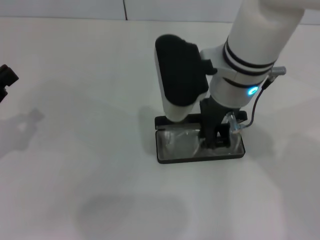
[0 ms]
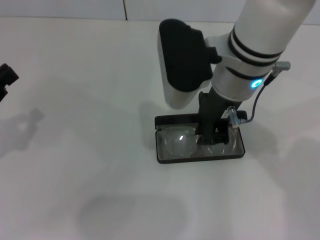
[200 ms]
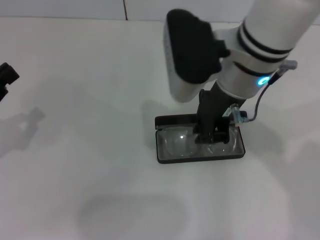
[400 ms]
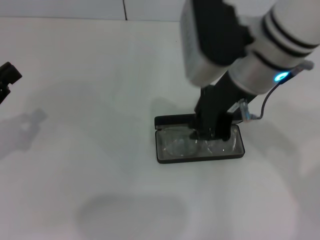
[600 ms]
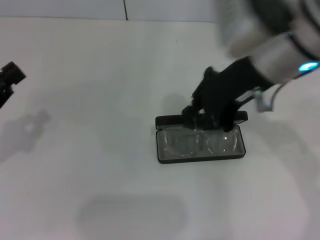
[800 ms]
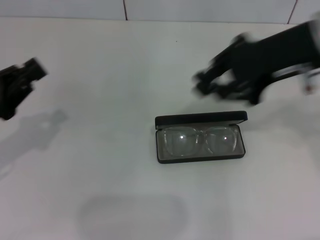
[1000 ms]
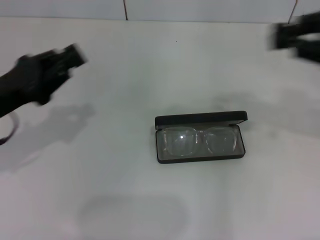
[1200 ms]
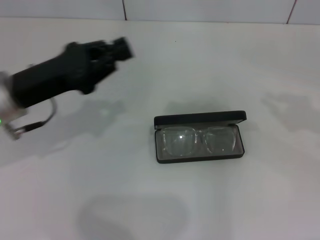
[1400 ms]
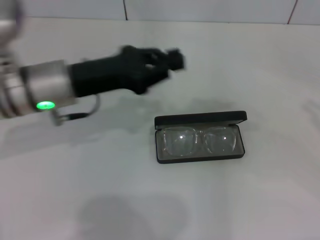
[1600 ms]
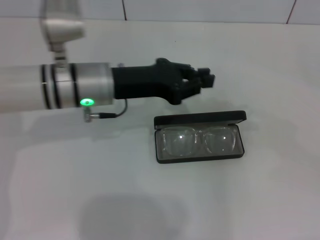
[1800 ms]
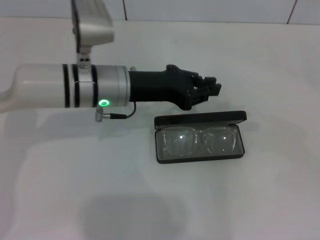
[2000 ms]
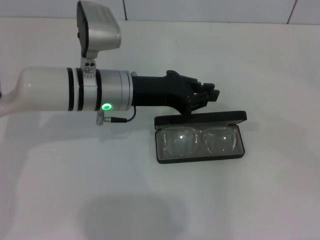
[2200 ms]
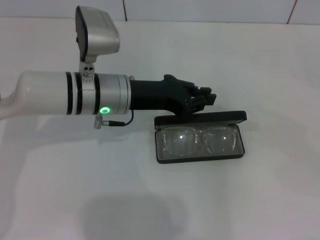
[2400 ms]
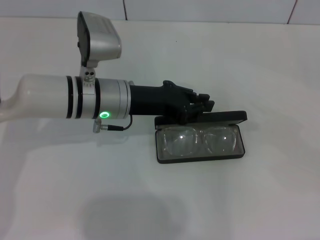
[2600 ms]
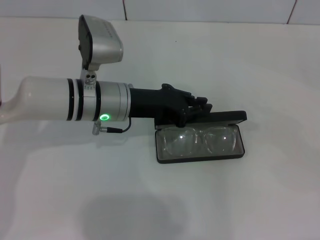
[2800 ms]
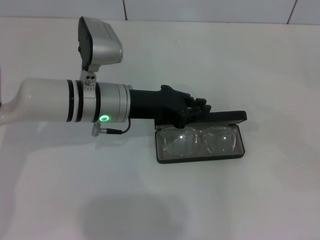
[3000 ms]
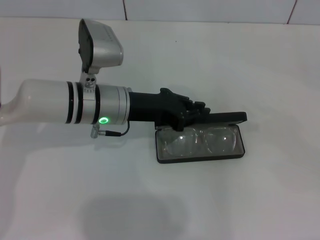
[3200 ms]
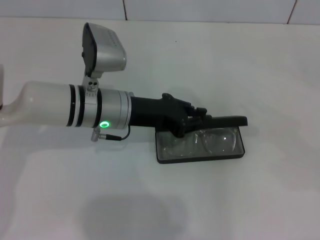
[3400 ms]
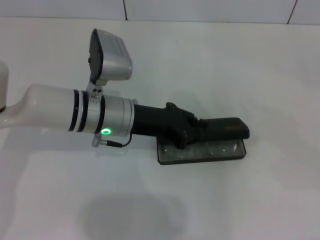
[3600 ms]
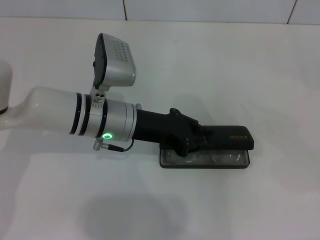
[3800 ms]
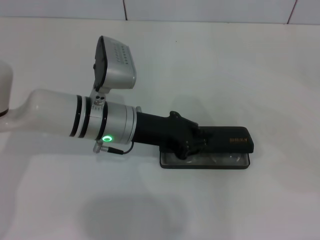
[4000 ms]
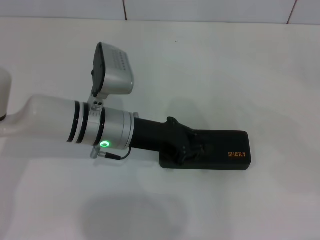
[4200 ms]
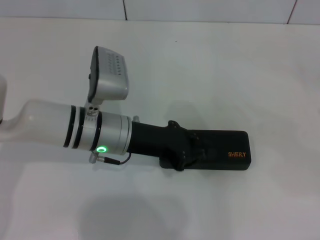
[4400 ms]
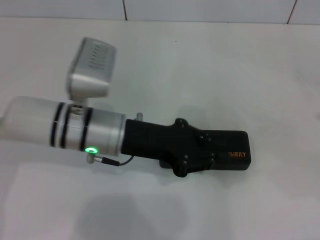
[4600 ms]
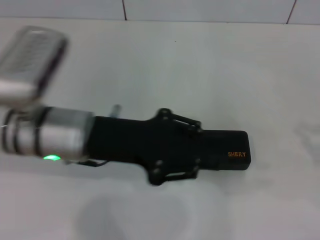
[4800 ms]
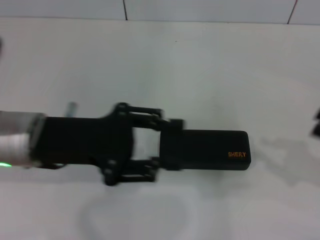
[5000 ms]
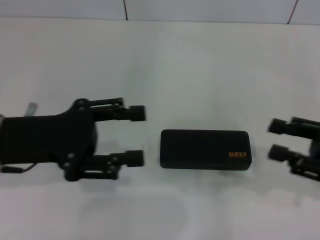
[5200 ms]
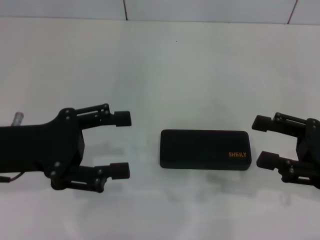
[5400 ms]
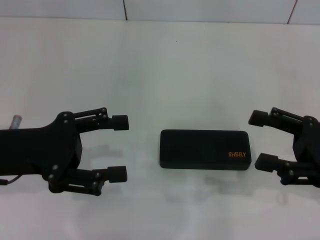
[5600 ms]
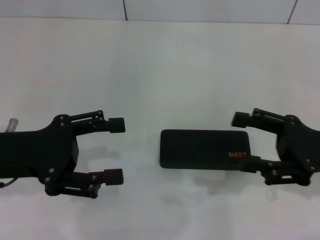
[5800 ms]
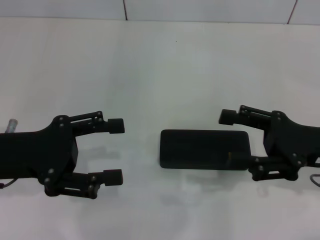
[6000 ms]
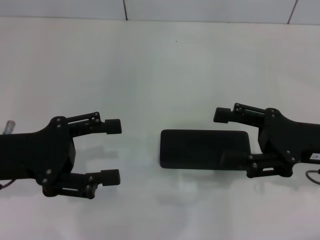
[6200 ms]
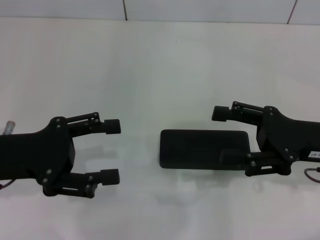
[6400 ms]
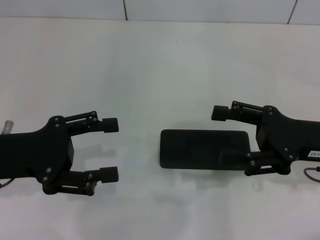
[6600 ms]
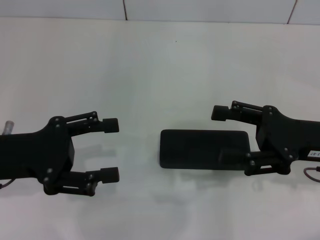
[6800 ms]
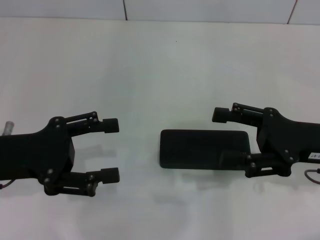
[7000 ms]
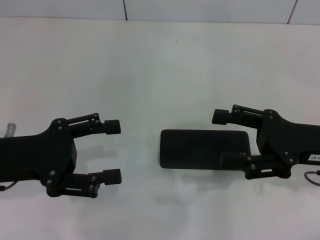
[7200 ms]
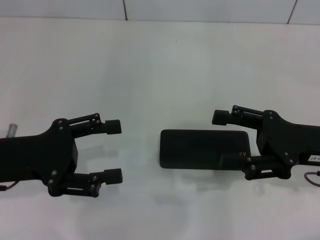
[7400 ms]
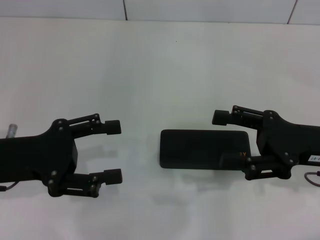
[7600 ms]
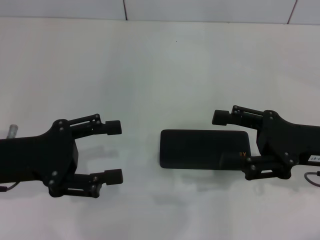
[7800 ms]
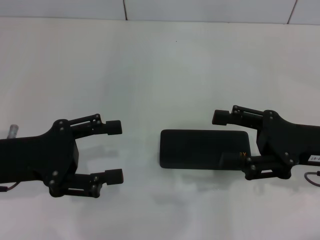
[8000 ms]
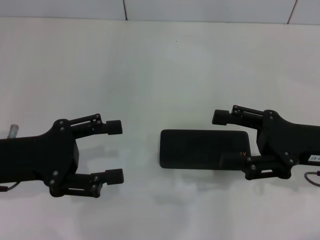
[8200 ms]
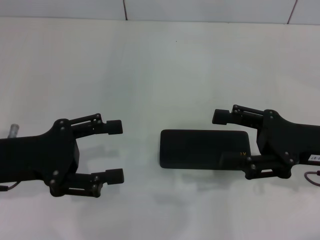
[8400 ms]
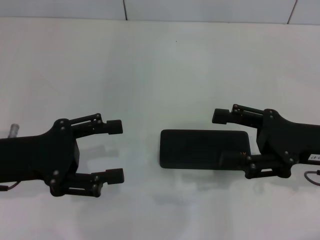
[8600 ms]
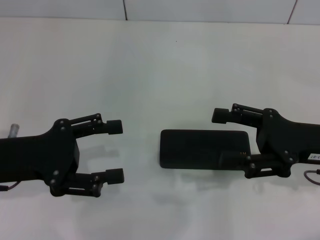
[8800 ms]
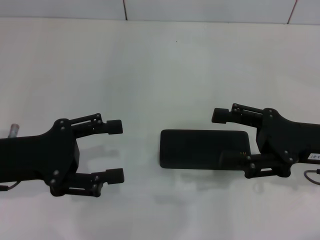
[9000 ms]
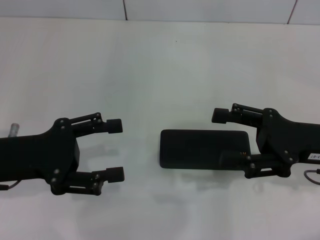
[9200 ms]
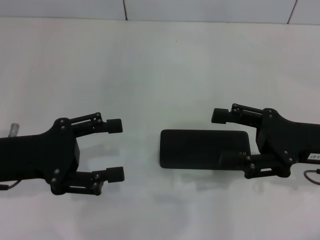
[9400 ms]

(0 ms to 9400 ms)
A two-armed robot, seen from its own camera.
Step, 800 ms - 4600 ms: Close the glasses case with your left hand.
0 ms - 1600 ms: The right gripper goes some 35 cm to the right; the left gripper heads to the right and forward, covering approximately 20 cm.
1600 ms - 3200 ms: The left gripper moves to the right, roughly 5 cm.
3200 ms - 4800 ms: The left gripper is displaced backward by roughly 5 cm.
4800 ms - 6200 ms: The left gripper travels to the left by about 10 cm, and opens. Meanwhile the right gripper shifts about 15 cm to the left and forward, and opens its fingers.
6200 ms - 9400 ms: The two grippers keep their place.

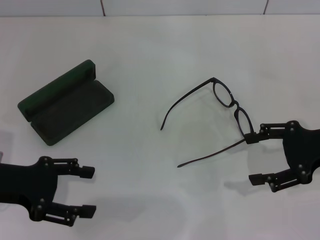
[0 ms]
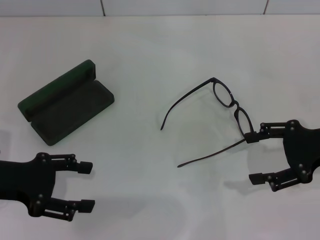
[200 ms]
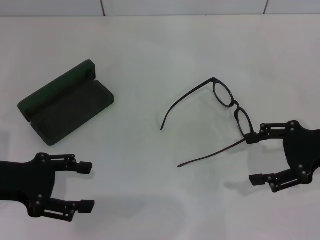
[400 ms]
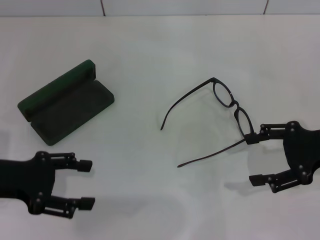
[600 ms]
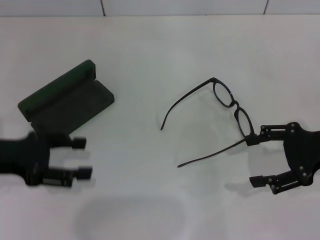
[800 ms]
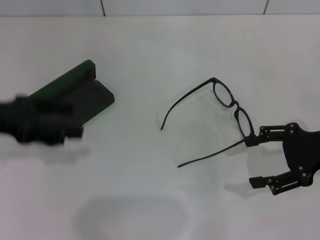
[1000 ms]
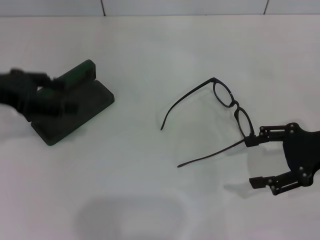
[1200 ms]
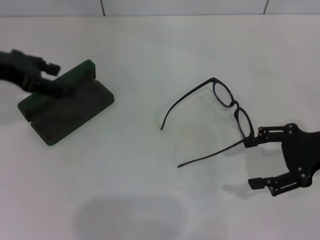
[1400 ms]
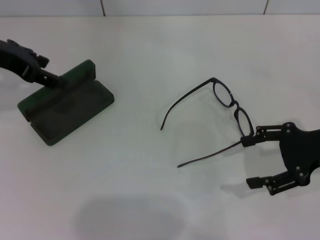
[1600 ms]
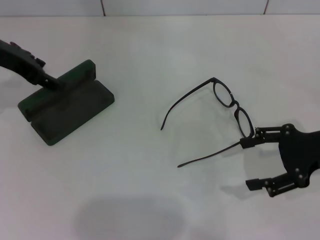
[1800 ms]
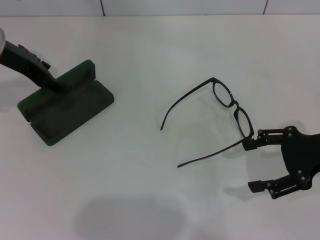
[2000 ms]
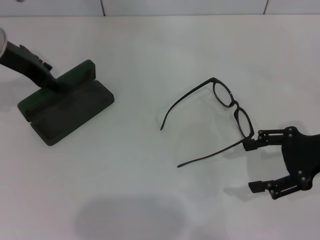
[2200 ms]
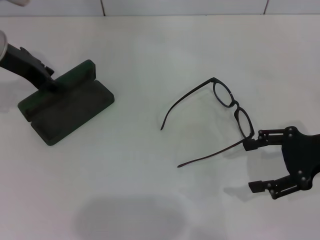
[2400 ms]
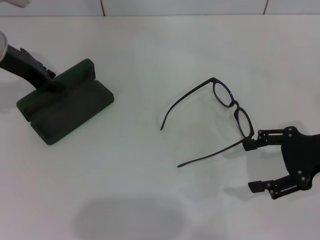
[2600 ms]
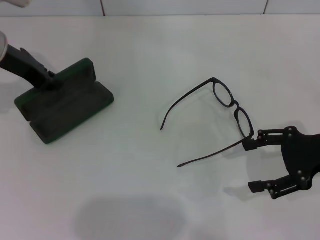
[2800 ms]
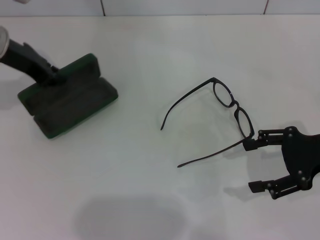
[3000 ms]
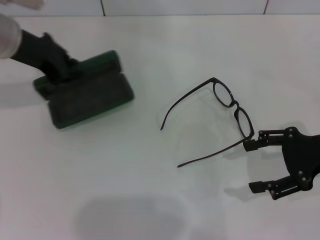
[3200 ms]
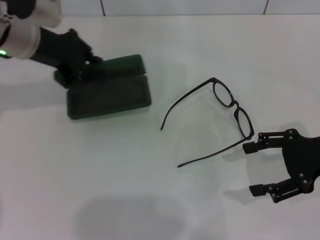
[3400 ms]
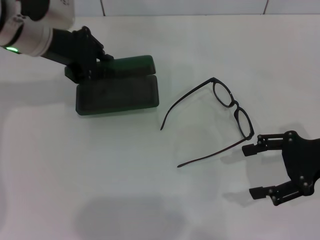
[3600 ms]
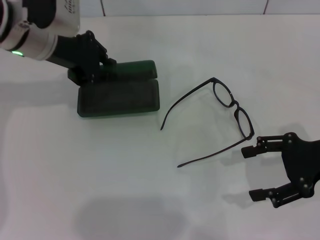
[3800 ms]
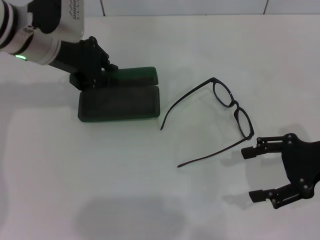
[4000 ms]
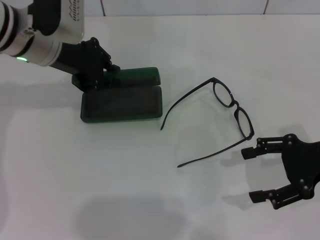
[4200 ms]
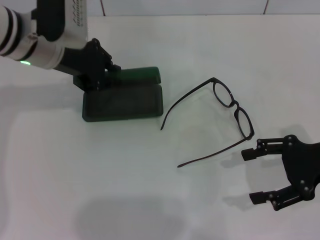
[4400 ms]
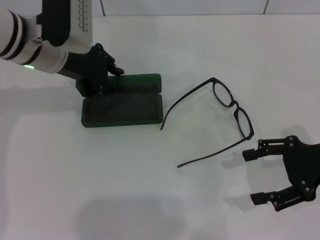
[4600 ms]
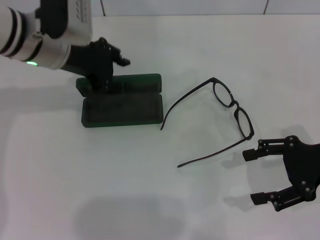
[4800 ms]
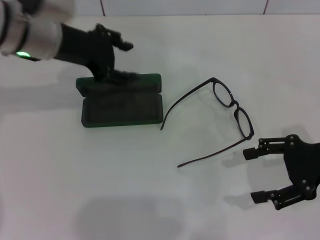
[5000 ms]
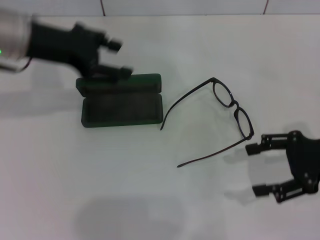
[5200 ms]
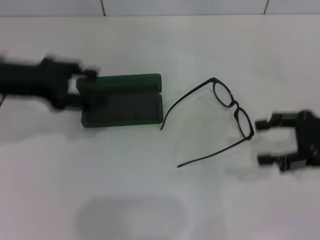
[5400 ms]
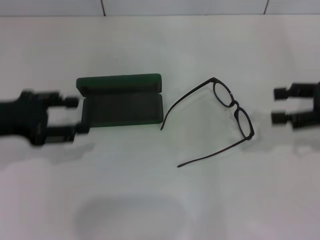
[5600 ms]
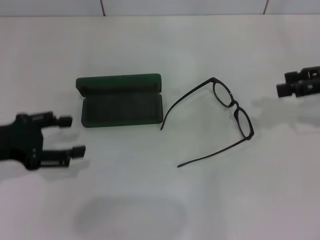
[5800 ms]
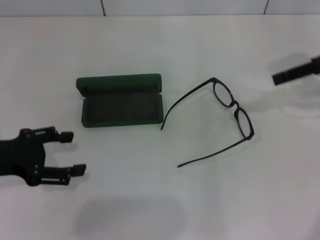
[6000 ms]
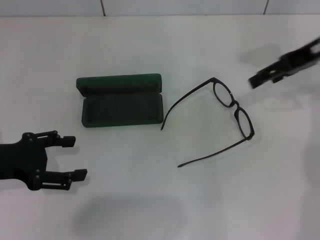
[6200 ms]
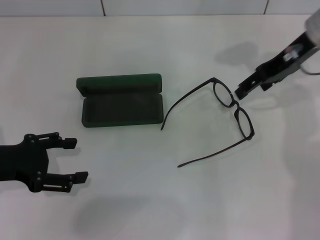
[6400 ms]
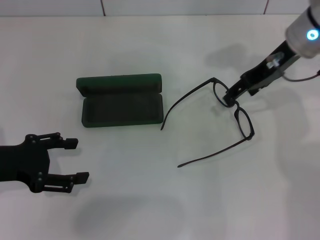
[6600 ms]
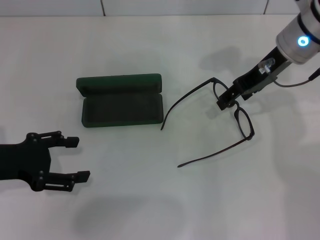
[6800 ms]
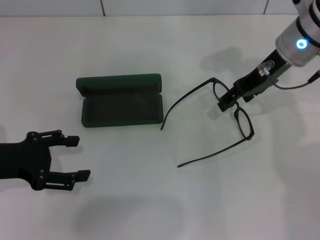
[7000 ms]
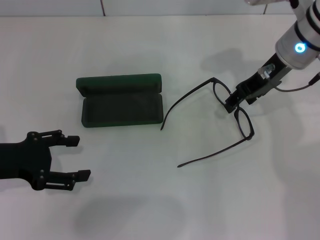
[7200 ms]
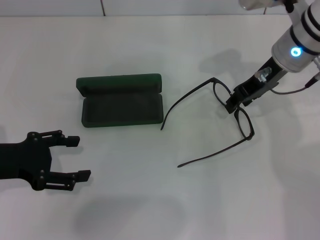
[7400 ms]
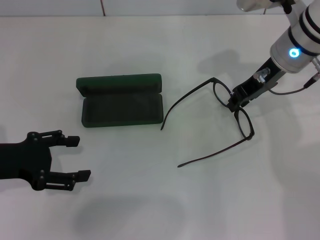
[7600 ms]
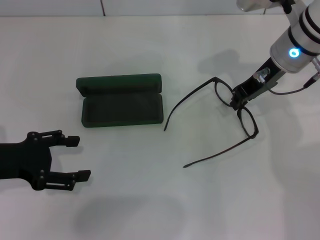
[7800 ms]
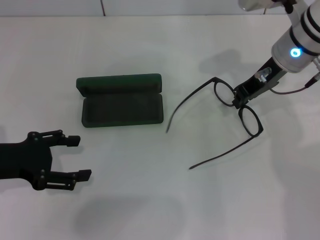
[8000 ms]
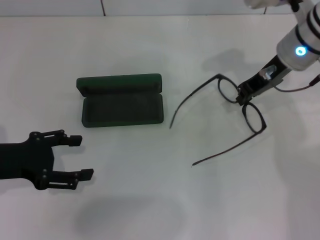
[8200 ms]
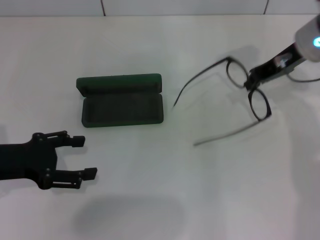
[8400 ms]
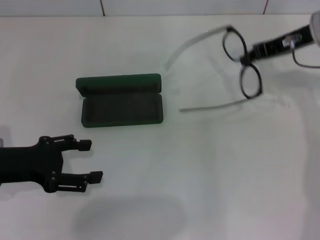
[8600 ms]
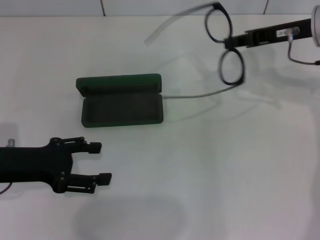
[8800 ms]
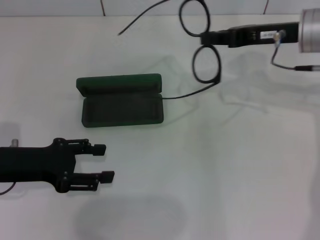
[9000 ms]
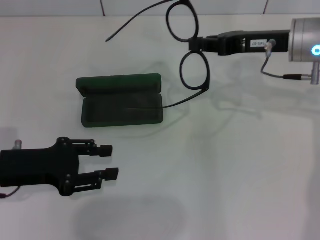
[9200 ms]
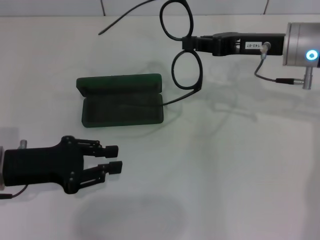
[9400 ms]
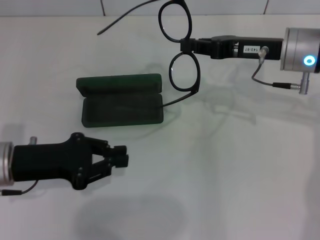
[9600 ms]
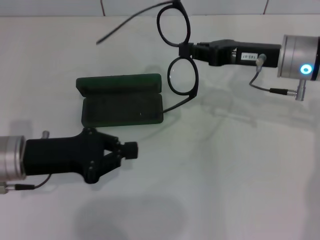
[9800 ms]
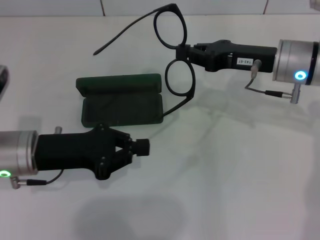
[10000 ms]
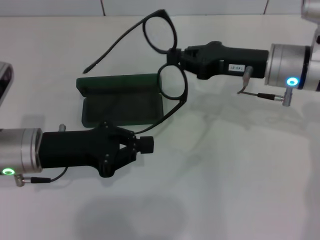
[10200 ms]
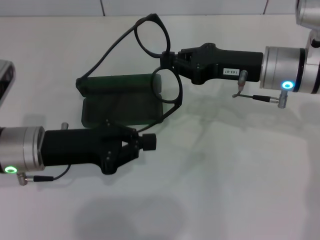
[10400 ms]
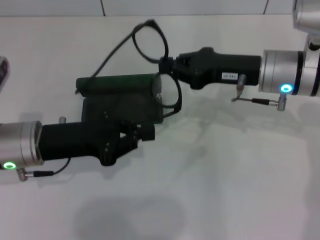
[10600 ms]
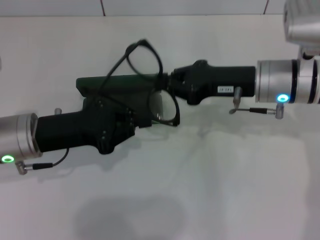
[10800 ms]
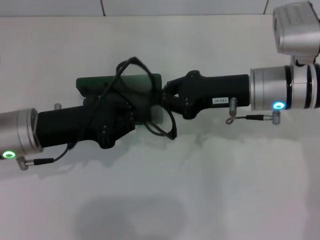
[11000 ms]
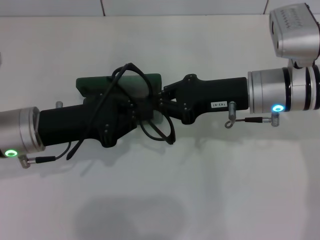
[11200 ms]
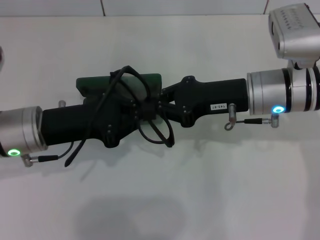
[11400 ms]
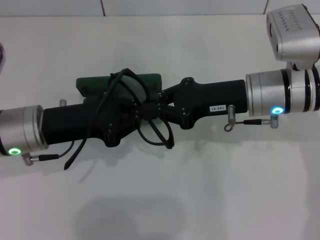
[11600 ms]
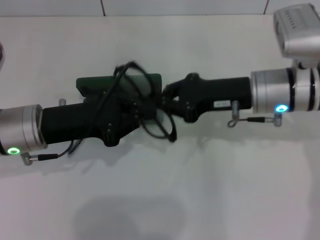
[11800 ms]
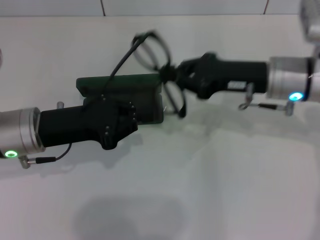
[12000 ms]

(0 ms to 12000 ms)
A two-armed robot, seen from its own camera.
Step, 0 ms - 3000 ms: Grab the glasses case with your left hand.
Step, 3200 ms - 5200 ms: Place the glasses case in the center of the table with your left hand.
Step, 5400 ms - 7800 ms: Grab the eyeglass frame with your right hand.
0 ms - 1600 ms: The left gripper moves forward and upward, some 15 cm.
1600 ms - 3000 ms: The left gripper closes its fingers.
3000 ms - 4400 ms: The left gripper shifts approximately 5 cm to the right.
4400 ms - 6000 ms: The right gripper shifts roughly 15 cm forward and upward. The left gripper heads backward and to the left, covering some 20 cm, and opens.
6000 ms - 7600 ms: The right gripper heads to the left, covering about 15 cm, and closes.
7600 ms - 9000 ms: The right gripper closes its fingers.
9000 ms - 10400 ms: The left gripper shifts approximately 5 cm to the right, and closes. Meanwhile the right gripper changes place by some 5 cm.

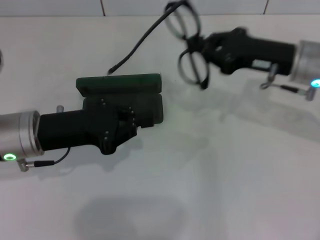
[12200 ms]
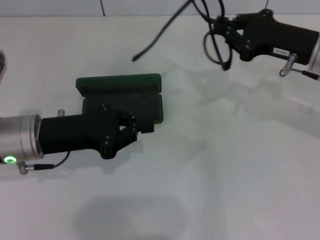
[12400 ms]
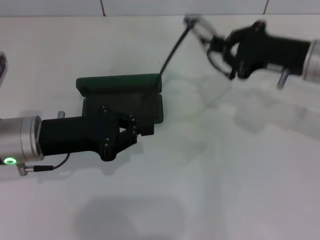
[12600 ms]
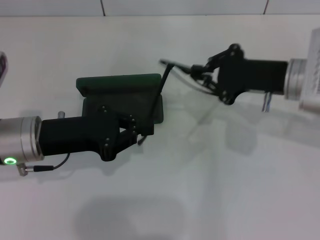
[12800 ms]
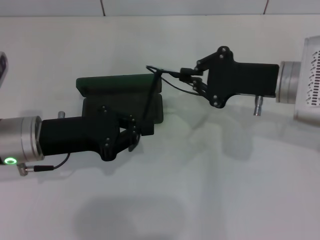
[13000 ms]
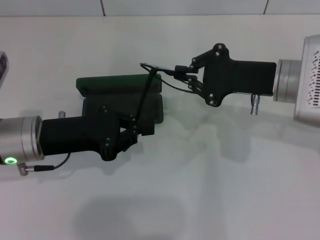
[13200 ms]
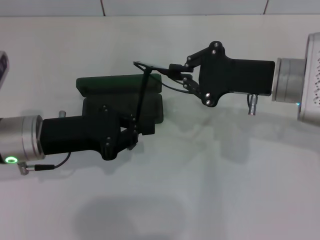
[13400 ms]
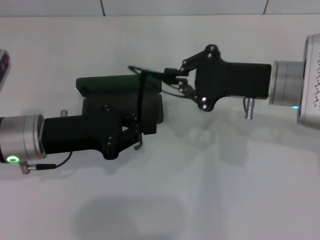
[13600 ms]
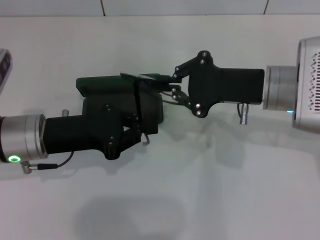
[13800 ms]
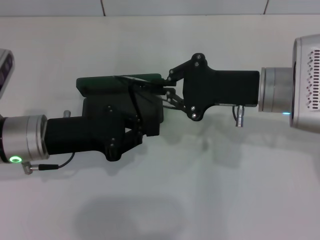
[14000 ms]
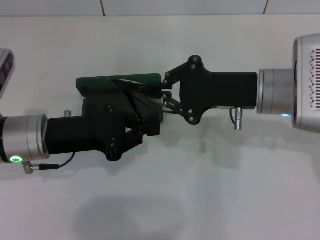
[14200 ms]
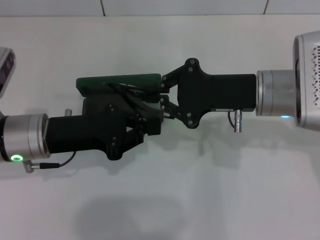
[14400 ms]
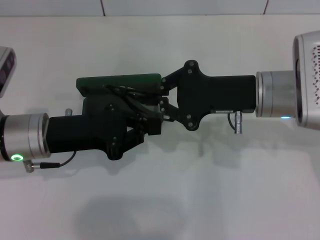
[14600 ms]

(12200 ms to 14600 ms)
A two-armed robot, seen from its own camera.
13400 ms - 14600 ms: The grippers stay close to where they were, moving slightly.
